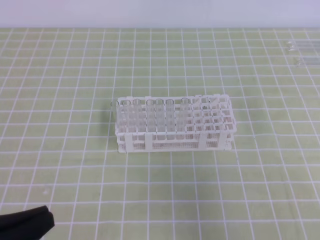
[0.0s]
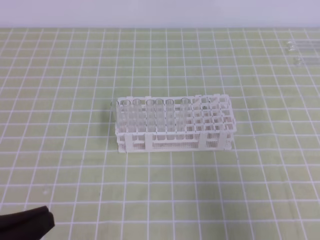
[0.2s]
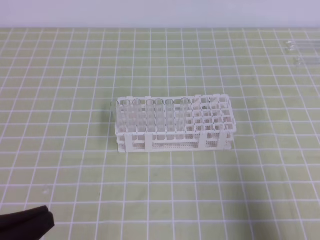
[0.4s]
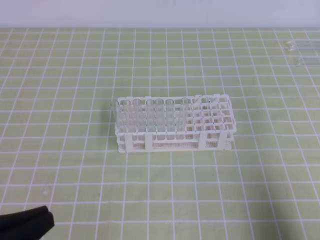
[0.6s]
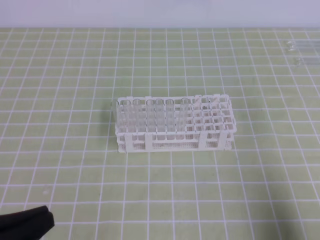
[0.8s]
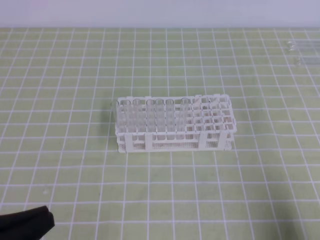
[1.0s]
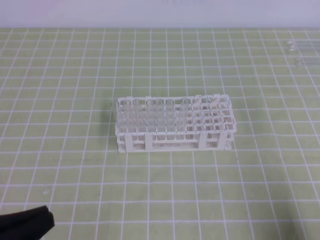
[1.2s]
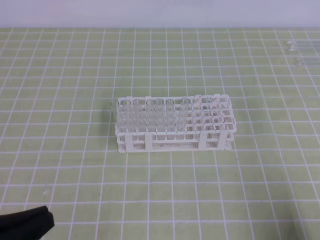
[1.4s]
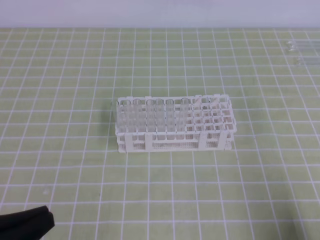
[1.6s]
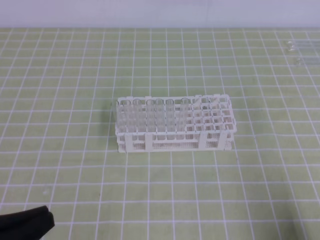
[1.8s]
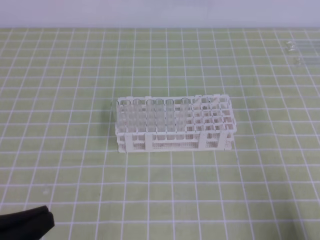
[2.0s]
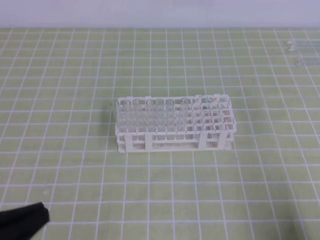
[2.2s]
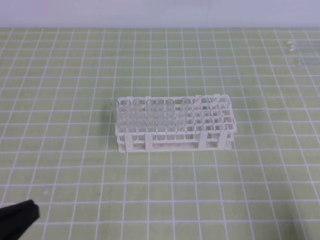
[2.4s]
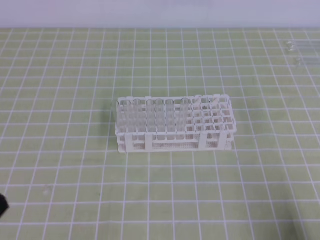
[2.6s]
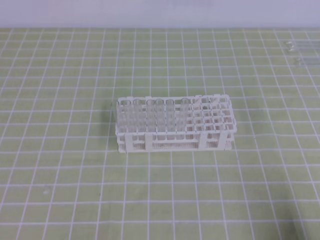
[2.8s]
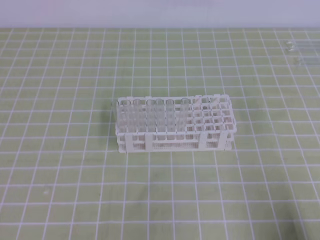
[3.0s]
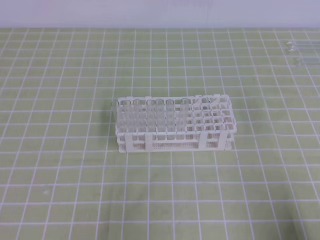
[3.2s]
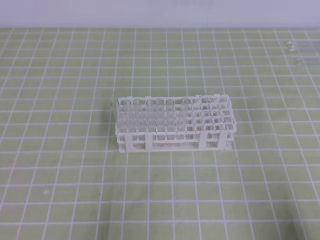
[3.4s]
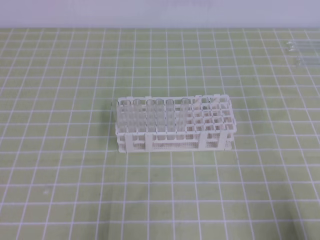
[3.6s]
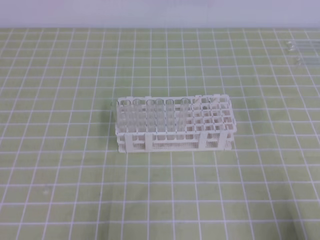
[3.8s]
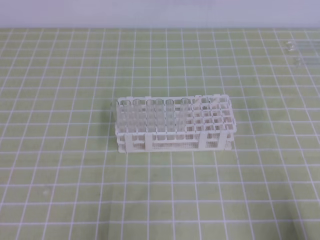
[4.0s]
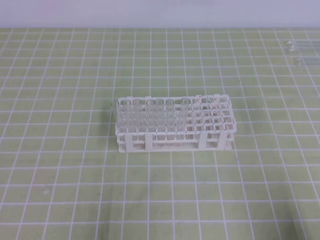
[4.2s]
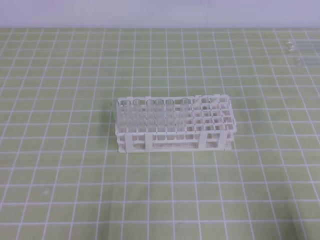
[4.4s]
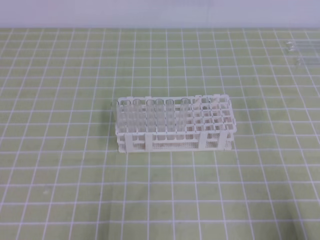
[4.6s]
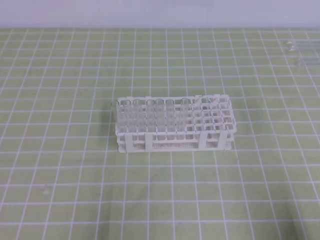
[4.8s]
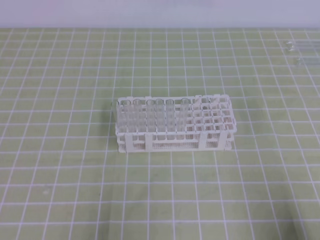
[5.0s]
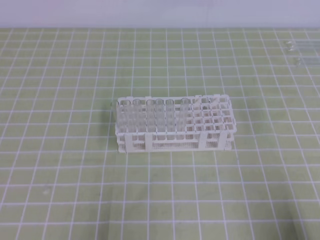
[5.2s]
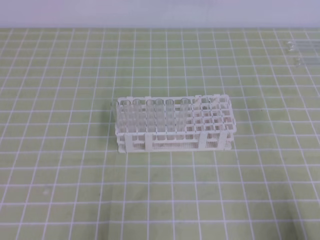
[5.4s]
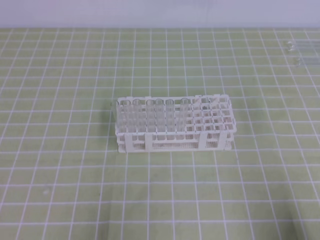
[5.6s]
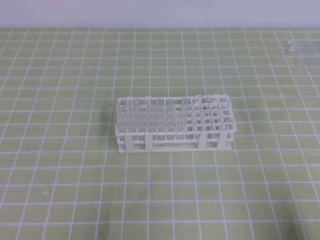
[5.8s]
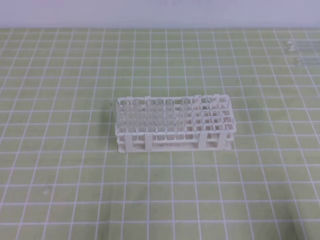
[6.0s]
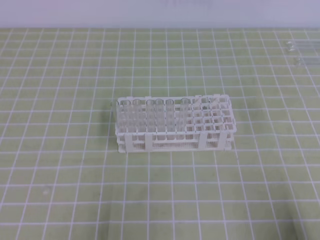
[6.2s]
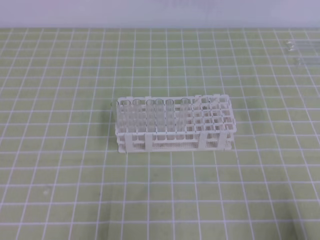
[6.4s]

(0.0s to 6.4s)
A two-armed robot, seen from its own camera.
0.0s - 1.6s: The right gripper goes approximately 20 cm downward and backward.
1.6s - 3.2s: The left gripper heads downward, covering roughly 5 cm.
4.8s - 6.4s: Neither gripper changes place.
